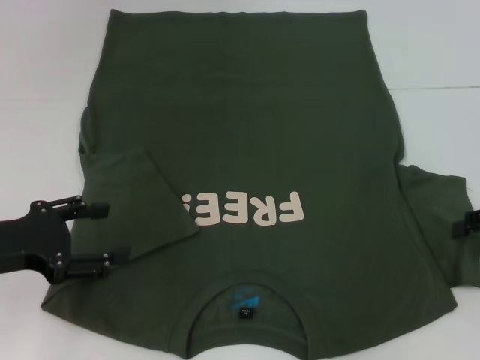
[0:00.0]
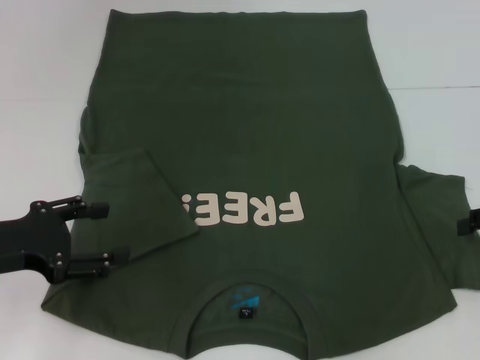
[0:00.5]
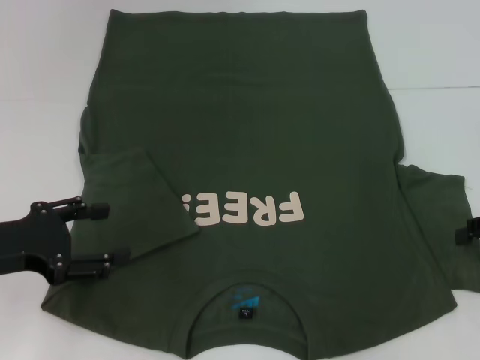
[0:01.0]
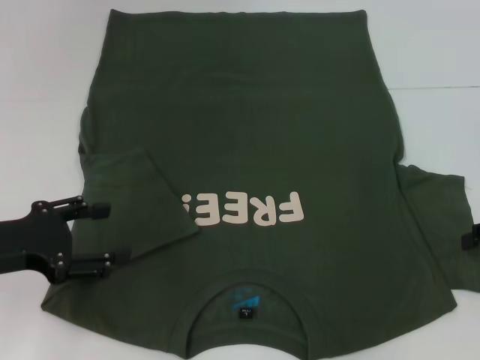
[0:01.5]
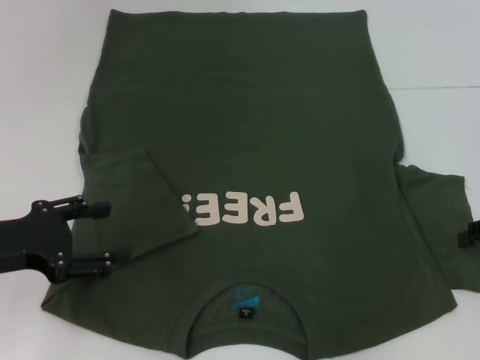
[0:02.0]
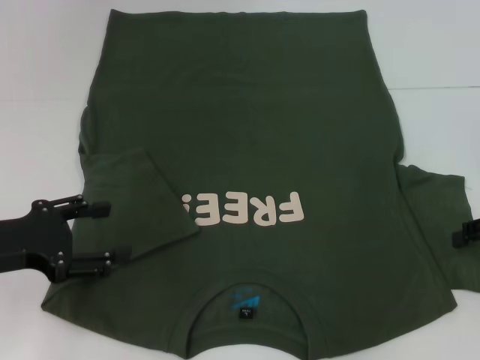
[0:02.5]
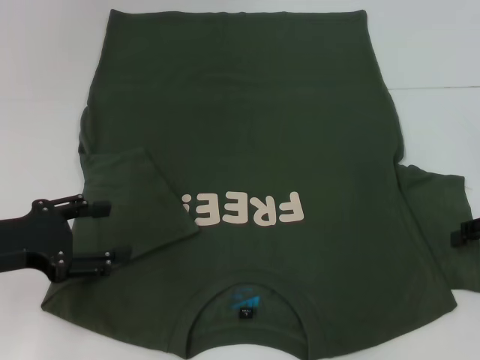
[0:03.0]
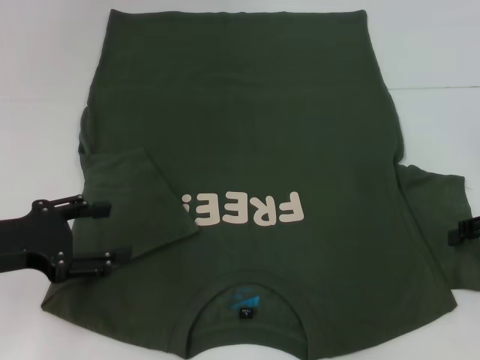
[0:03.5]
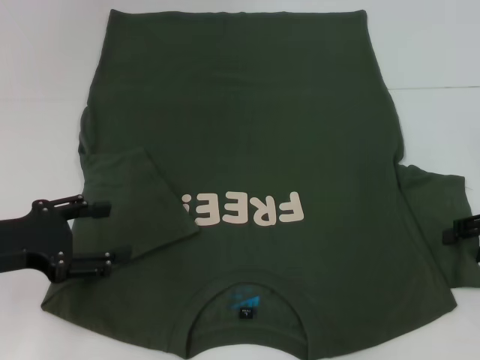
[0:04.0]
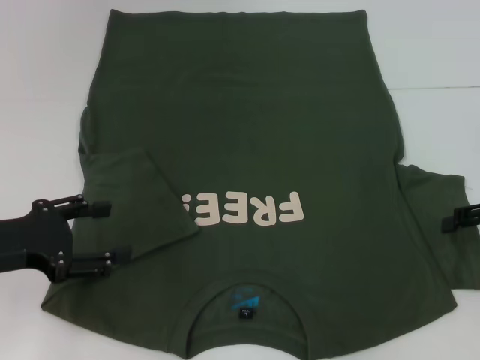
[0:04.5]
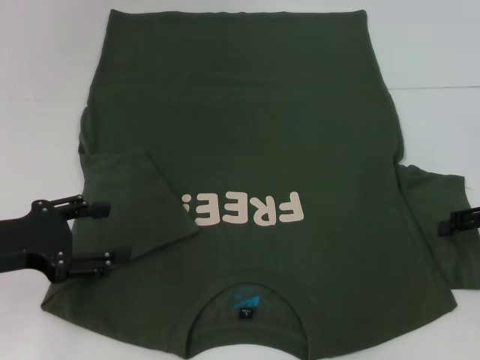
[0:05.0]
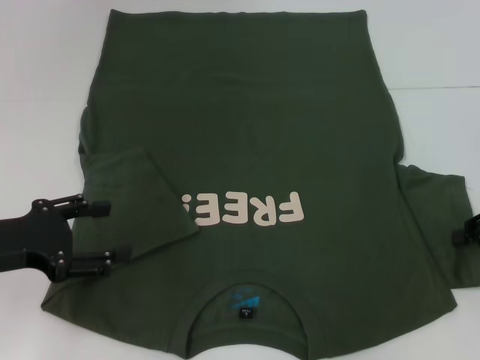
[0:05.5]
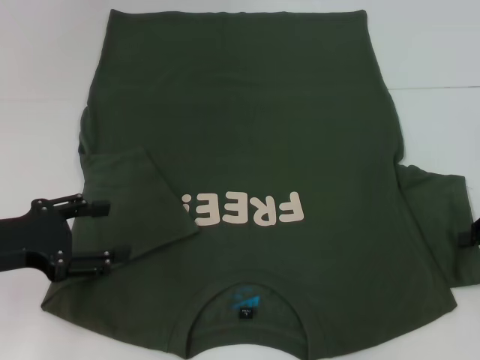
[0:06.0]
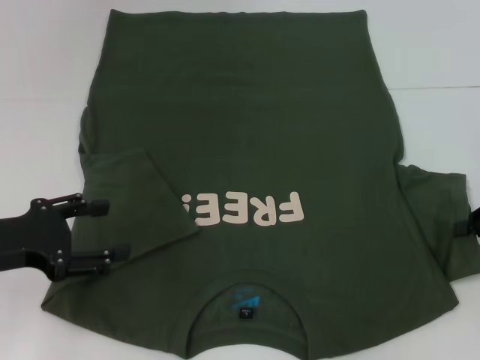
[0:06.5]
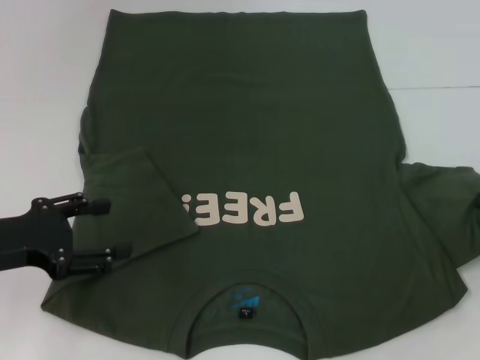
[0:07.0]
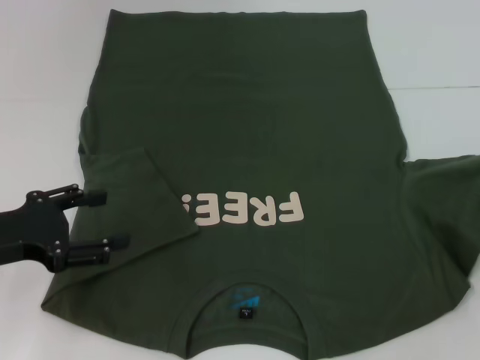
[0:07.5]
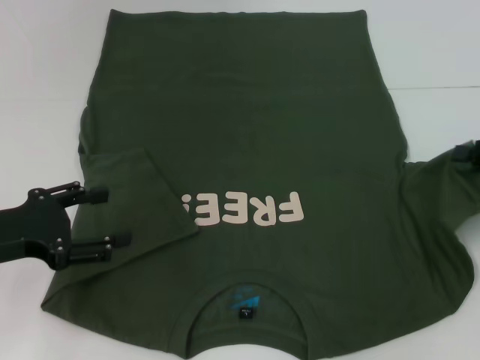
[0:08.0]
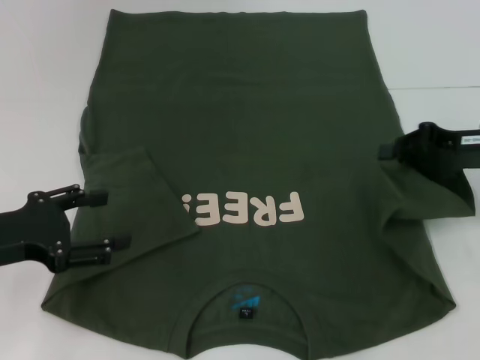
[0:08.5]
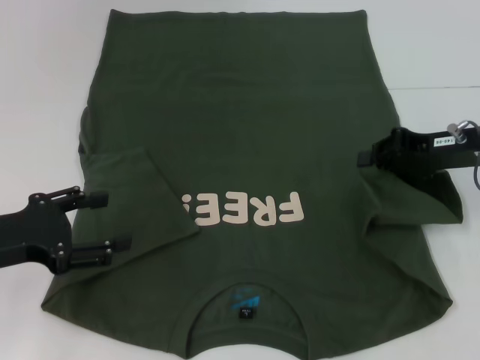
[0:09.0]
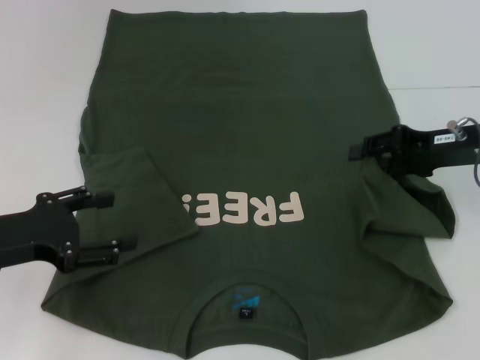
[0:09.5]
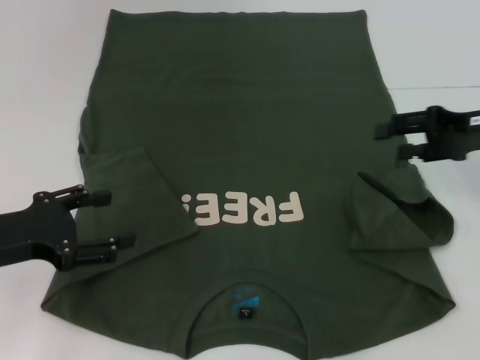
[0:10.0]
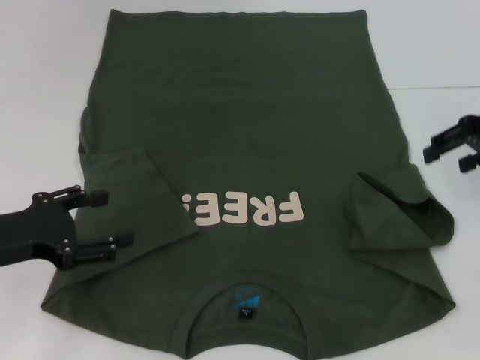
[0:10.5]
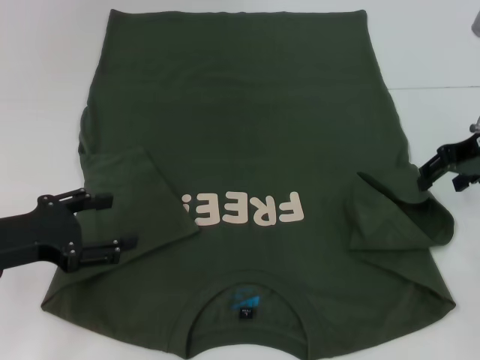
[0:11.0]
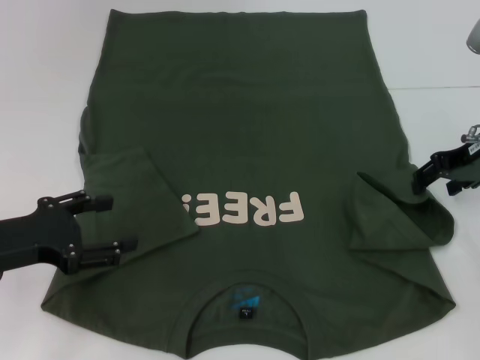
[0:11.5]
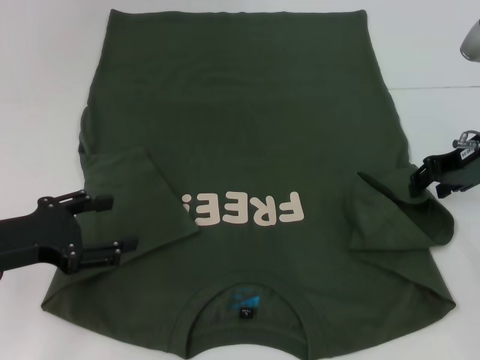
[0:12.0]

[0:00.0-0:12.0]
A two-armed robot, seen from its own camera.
0:02.0 to 0:04.0: Both grippers stay put.
0:08.0 to 0:10.0: The right gripper is displaced to the left and forward by some 10 cm, and opens its fingers.

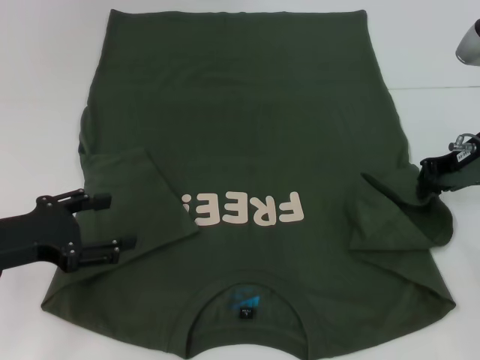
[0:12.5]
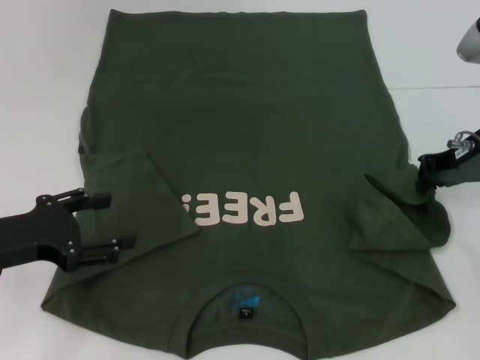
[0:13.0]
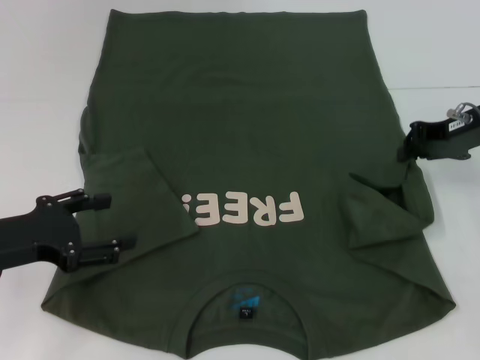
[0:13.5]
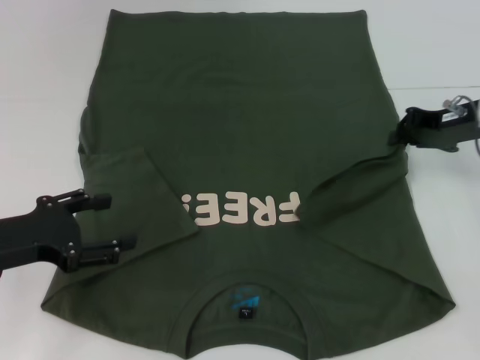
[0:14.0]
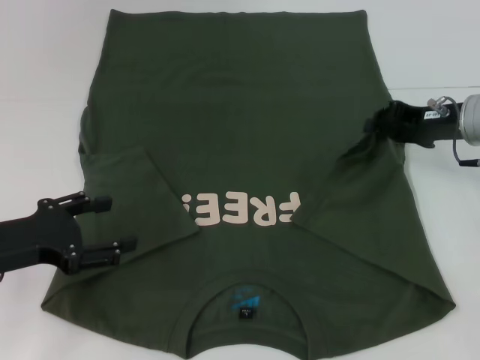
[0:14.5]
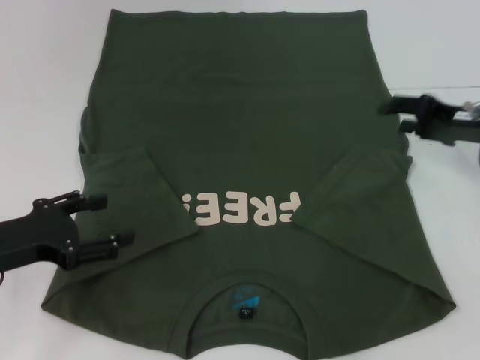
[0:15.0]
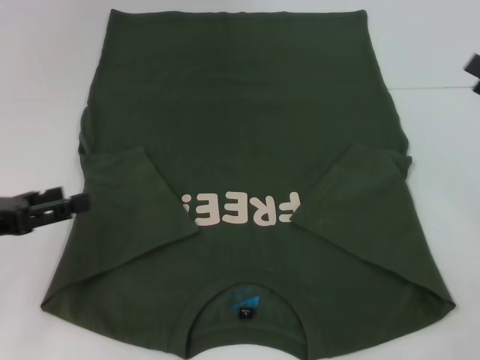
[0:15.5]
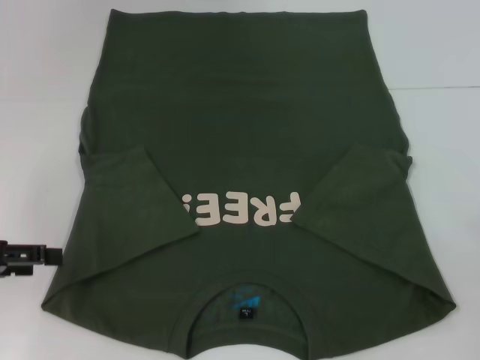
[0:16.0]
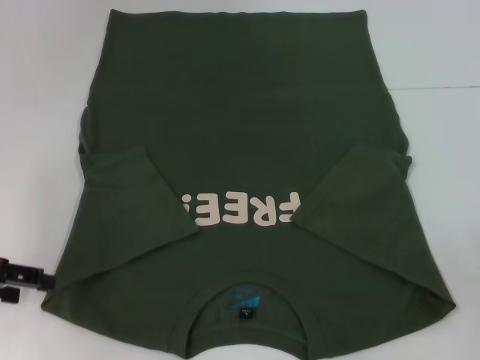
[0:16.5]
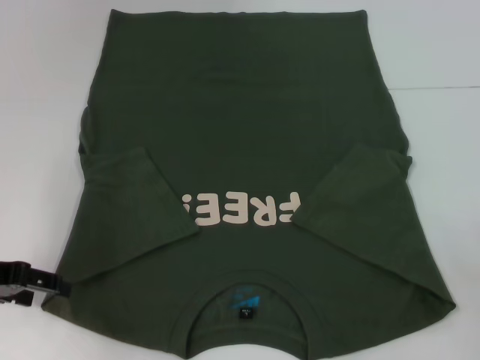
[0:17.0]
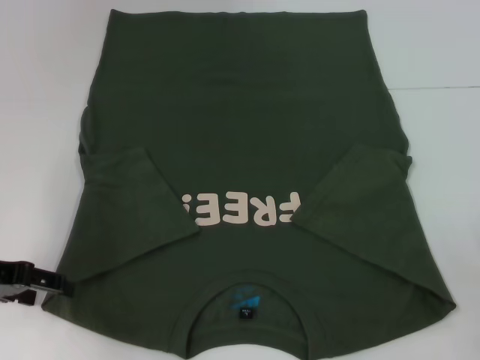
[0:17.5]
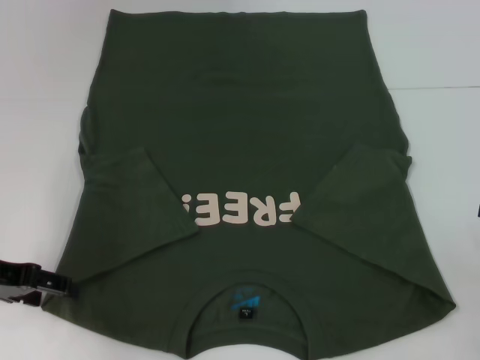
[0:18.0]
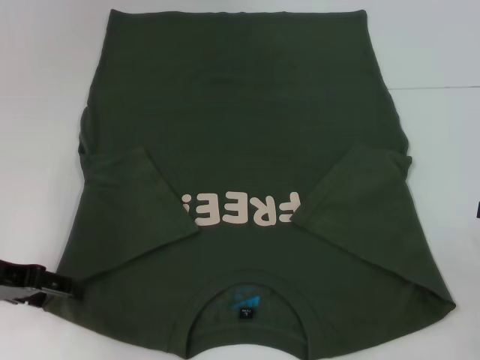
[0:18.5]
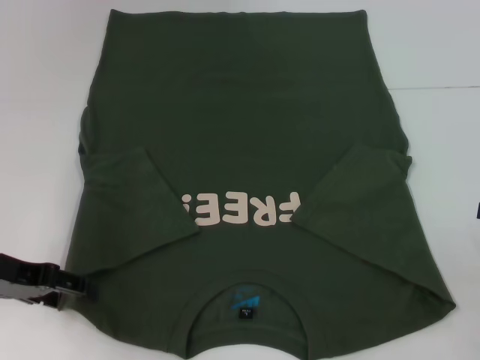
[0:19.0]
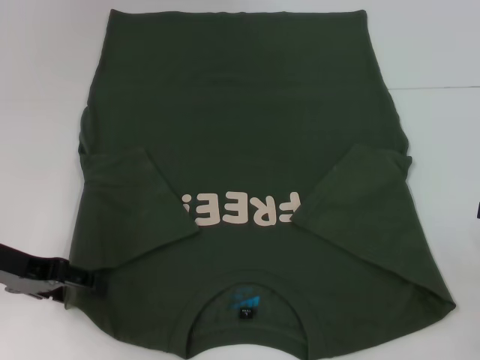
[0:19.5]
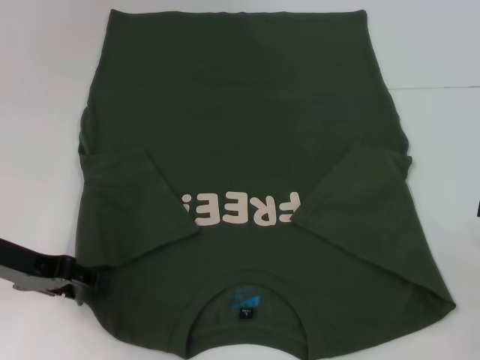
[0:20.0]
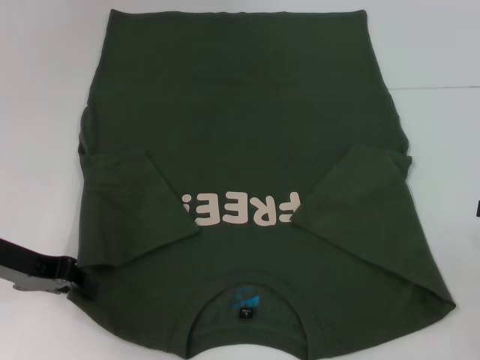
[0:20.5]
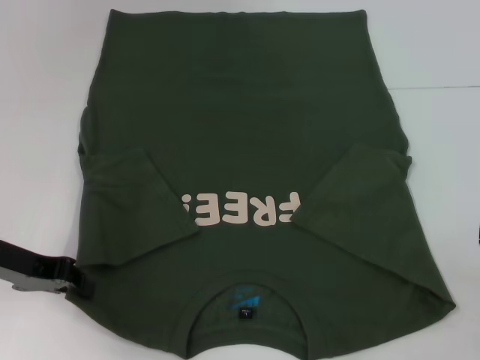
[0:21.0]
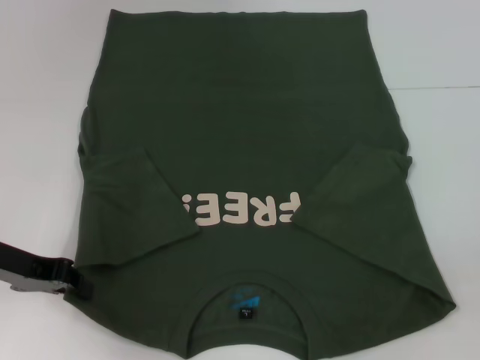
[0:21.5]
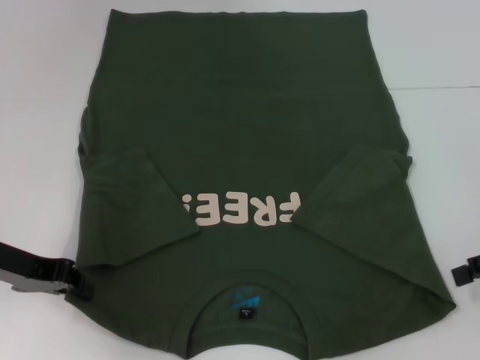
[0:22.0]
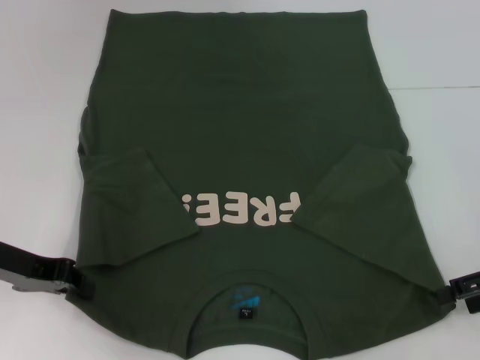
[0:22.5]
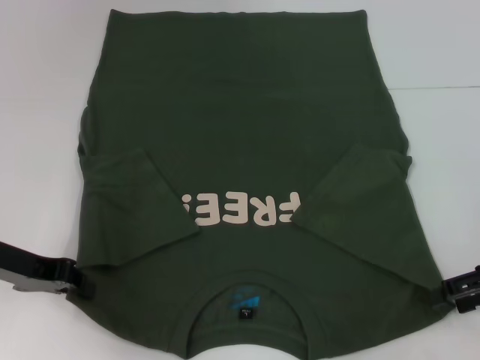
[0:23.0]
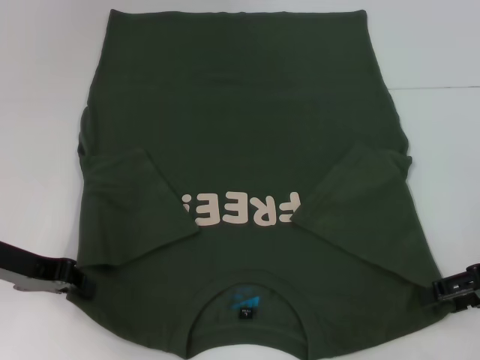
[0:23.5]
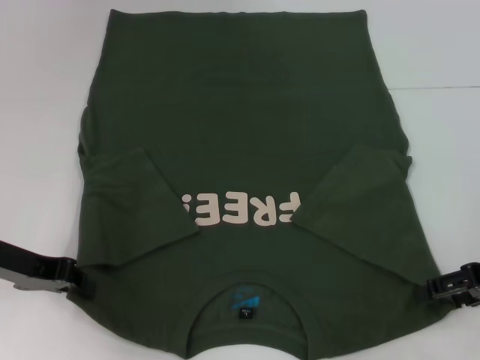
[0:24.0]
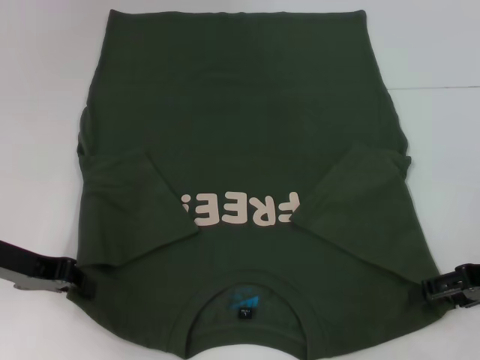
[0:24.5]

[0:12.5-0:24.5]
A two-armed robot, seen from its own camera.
Step, 0:12.5 to 0:14.5: Fold the bottom right sleeve with your right hand.
Step, 0:15.0 to 0:21.5: Grab the bottom left corner with your left hand.
0:12.5 to 0:14.5: The right gripper closes.
0:14.5 to 0:16.5: The right gripper heads backward and to the right, covering roughly 20 cm, and opens, while the left gripper shifts some 5 cm to the left.
0:18.5 to 0:20.5: The left gripper closes its fingers.
0:20.5 to 0:22.5: The right gripper shifts approximately 5 cm to the left.
0:22.5 to 0:24.5: The grippers stay close to where they were, moving slightly.

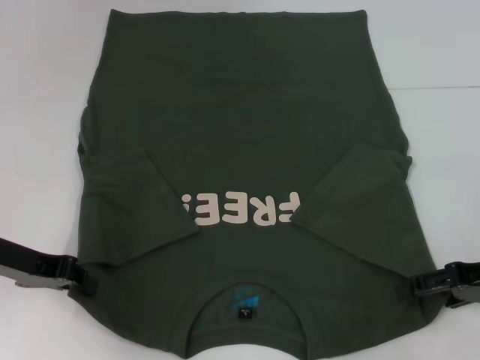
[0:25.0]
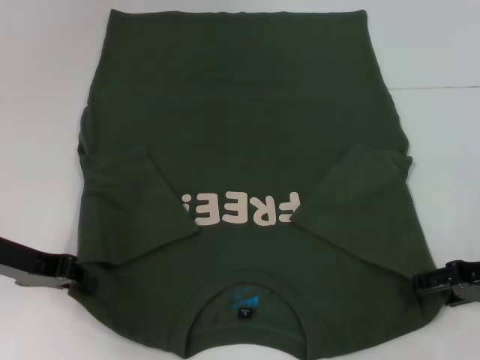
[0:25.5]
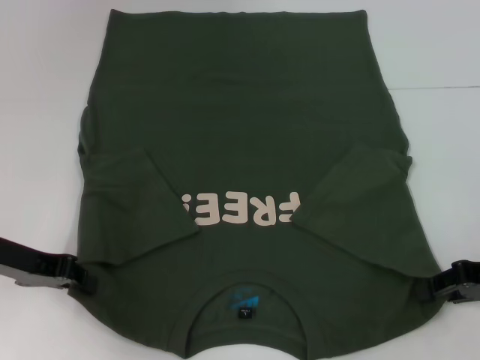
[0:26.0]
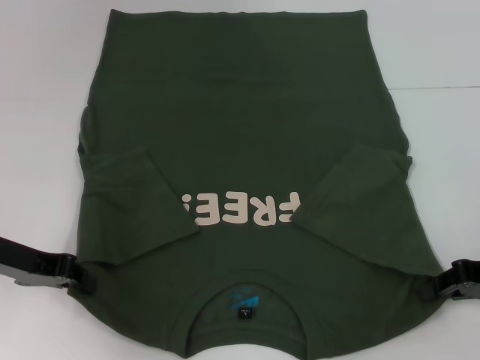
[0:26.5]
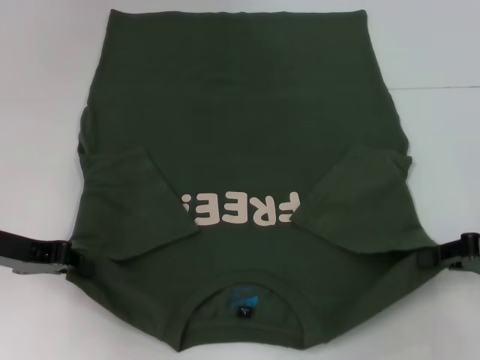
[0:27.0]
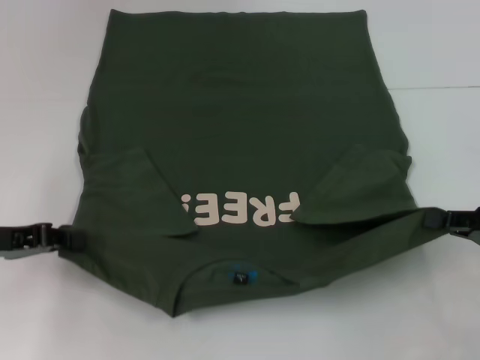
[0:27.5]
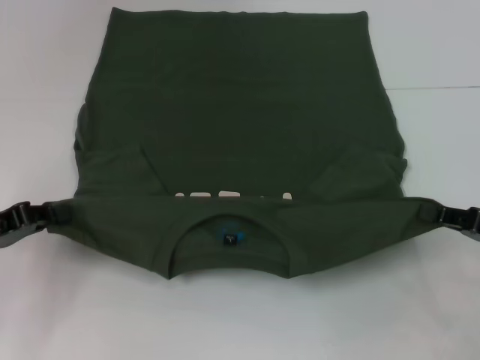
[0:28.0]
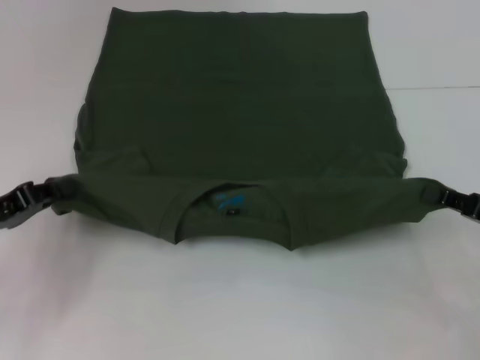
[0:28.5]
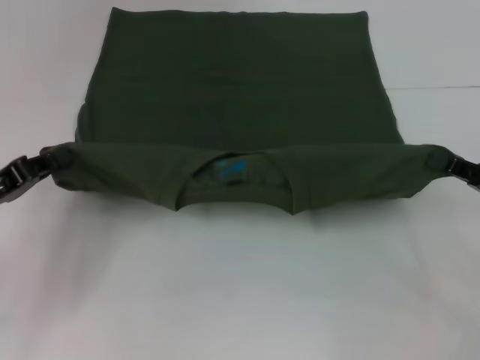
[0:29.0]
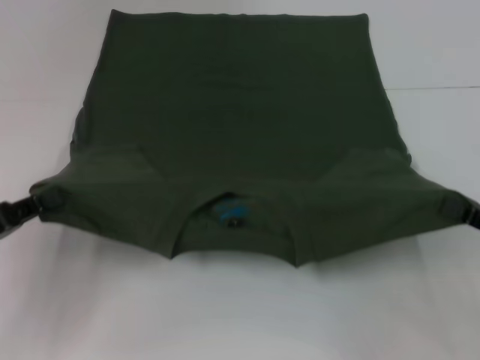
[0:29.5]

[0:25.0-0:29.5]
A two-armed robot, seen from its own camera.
0:25.0 to 0:27.0: The right gripper closes its fingers.
0:27.0 to 0:29.5: The grippers both shift backward by about 5 cm.
